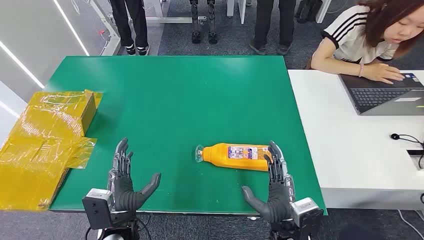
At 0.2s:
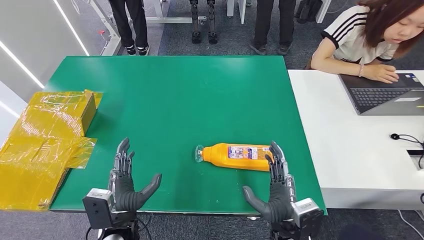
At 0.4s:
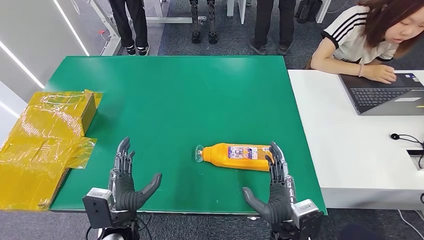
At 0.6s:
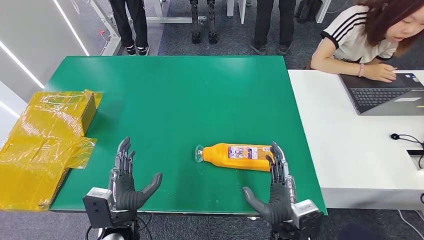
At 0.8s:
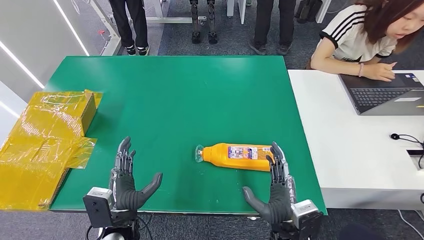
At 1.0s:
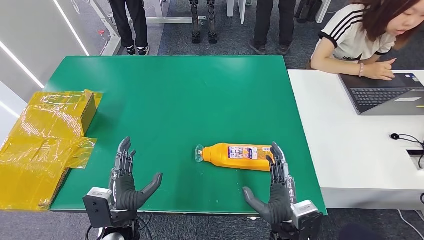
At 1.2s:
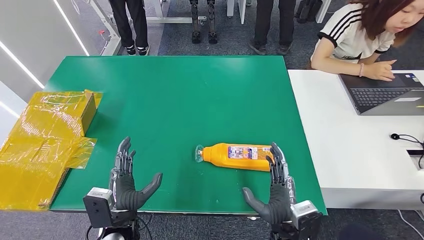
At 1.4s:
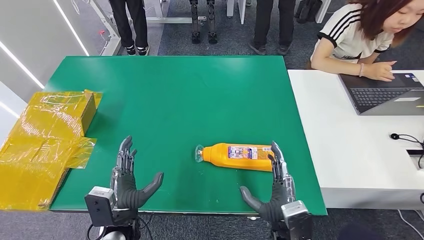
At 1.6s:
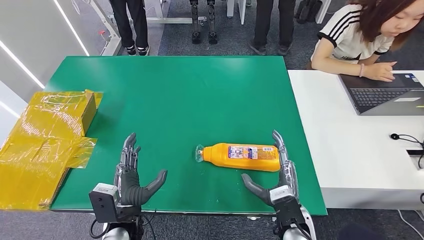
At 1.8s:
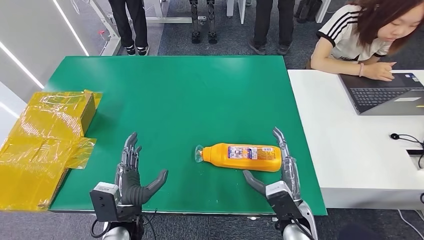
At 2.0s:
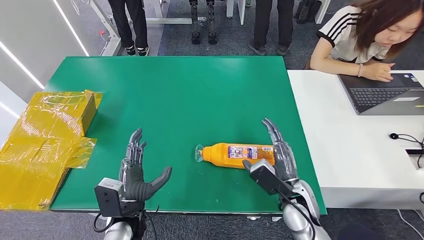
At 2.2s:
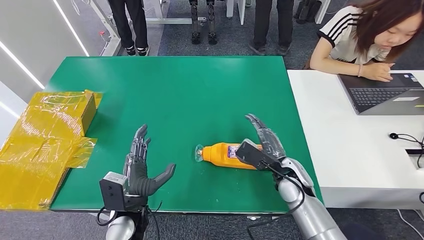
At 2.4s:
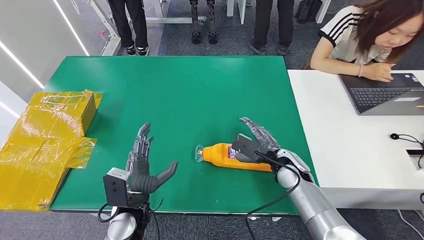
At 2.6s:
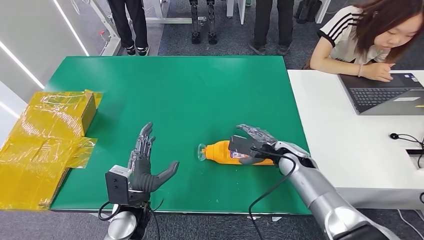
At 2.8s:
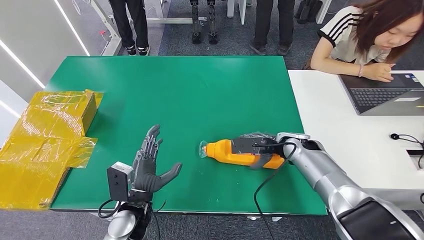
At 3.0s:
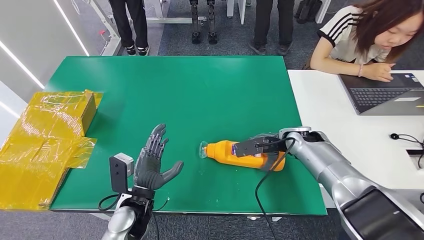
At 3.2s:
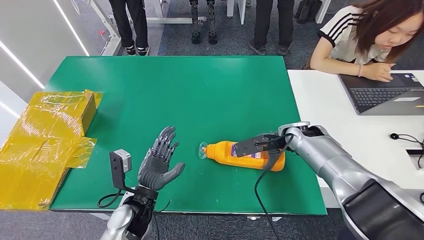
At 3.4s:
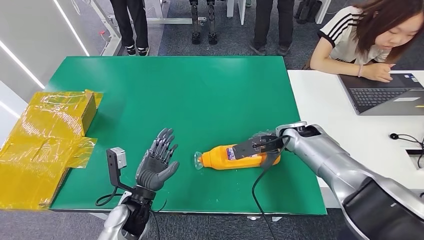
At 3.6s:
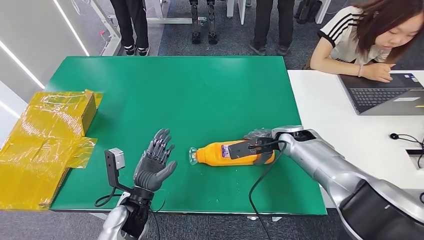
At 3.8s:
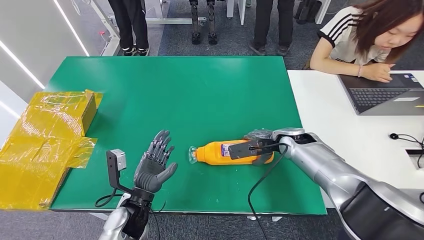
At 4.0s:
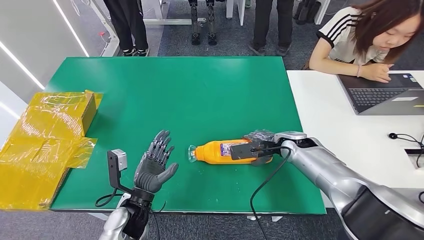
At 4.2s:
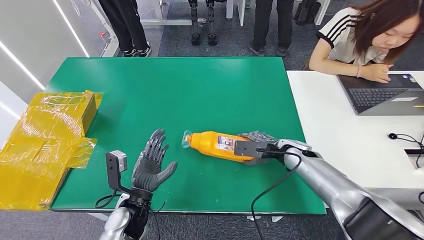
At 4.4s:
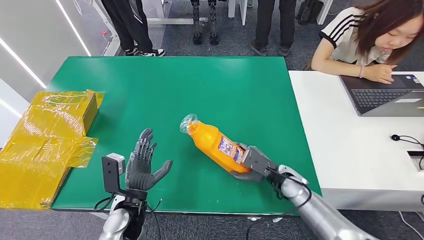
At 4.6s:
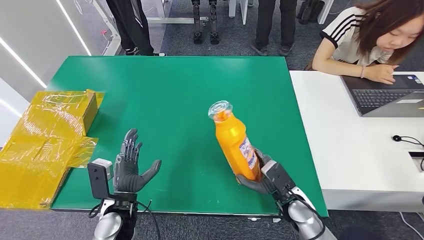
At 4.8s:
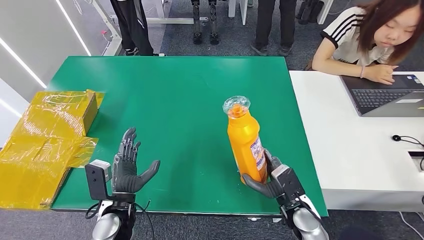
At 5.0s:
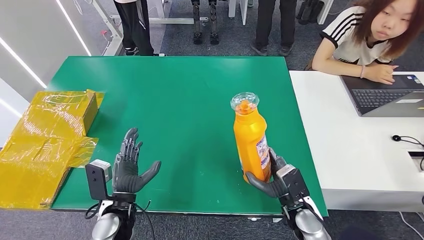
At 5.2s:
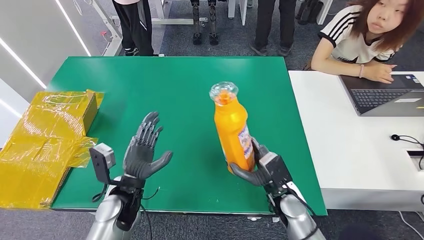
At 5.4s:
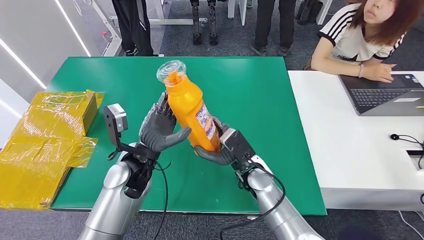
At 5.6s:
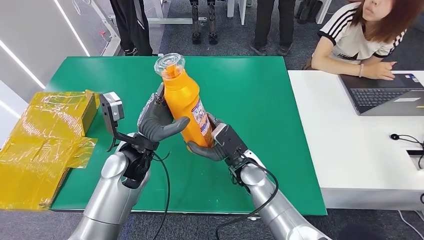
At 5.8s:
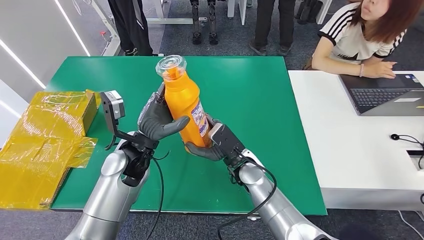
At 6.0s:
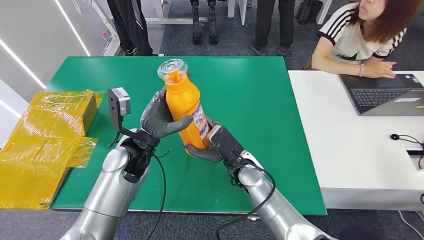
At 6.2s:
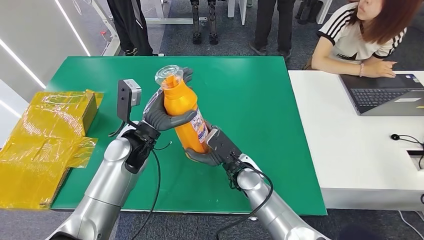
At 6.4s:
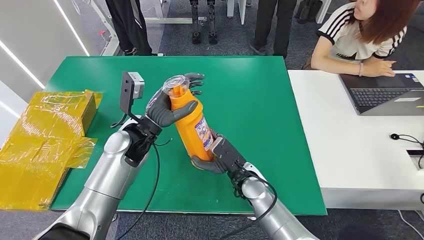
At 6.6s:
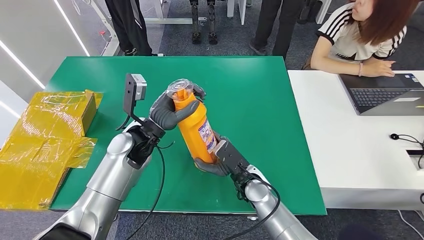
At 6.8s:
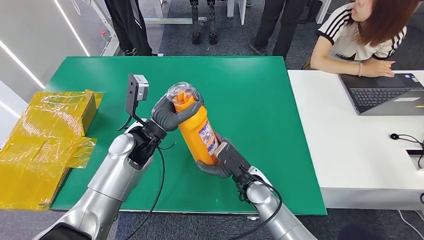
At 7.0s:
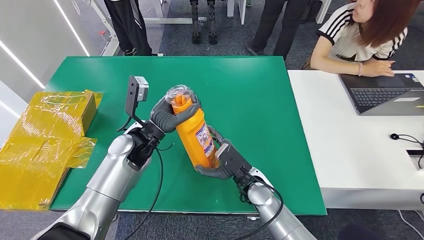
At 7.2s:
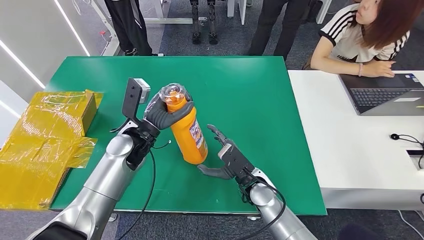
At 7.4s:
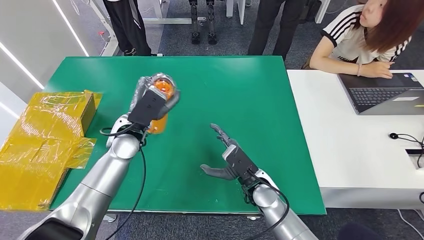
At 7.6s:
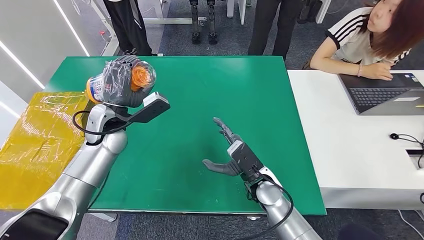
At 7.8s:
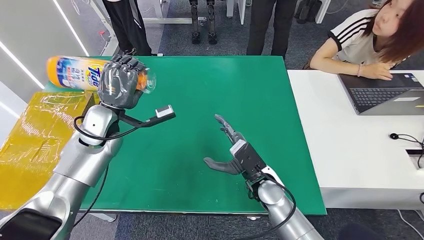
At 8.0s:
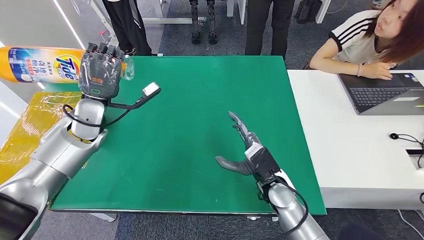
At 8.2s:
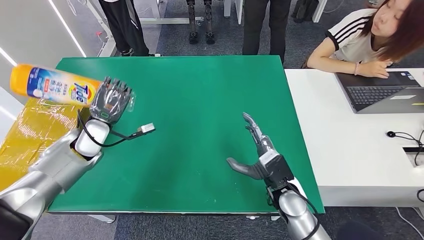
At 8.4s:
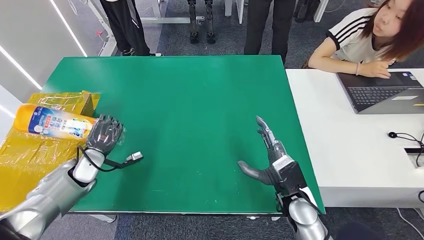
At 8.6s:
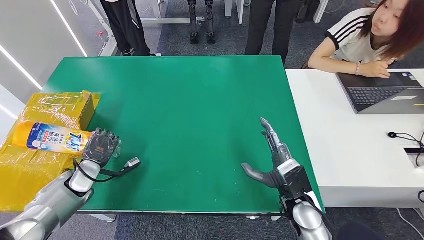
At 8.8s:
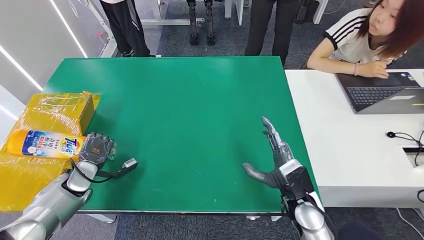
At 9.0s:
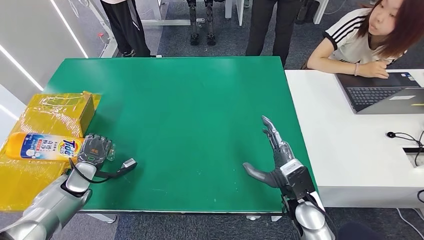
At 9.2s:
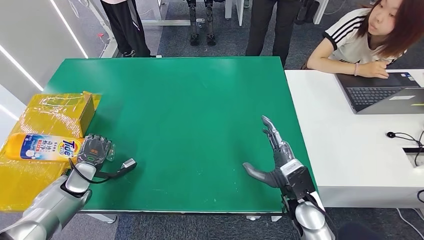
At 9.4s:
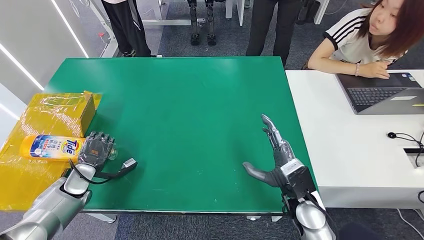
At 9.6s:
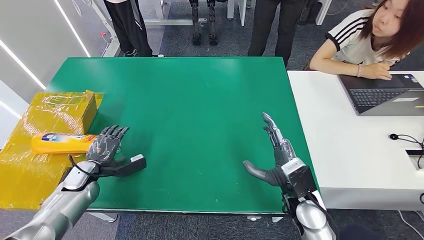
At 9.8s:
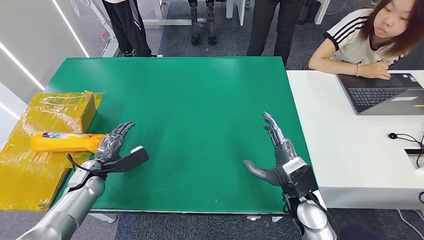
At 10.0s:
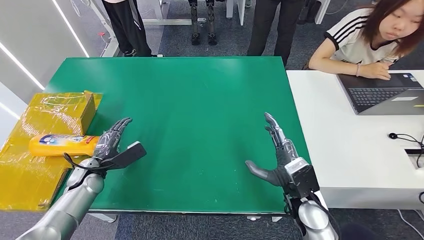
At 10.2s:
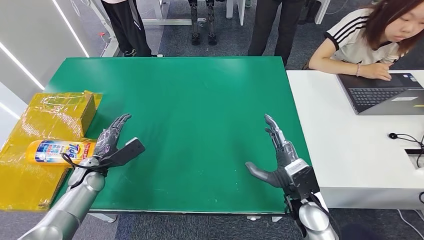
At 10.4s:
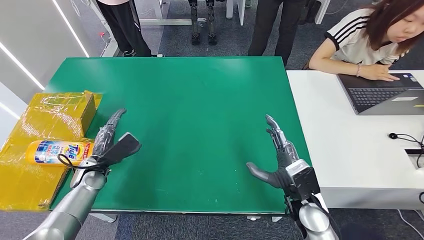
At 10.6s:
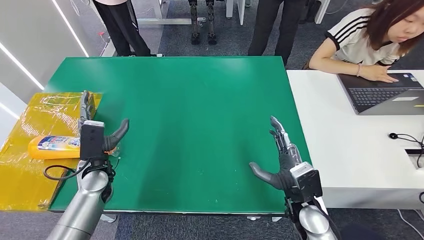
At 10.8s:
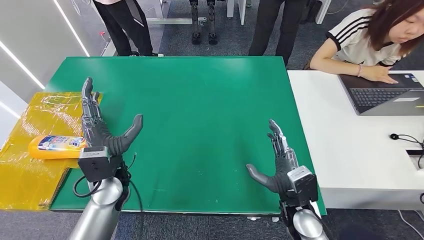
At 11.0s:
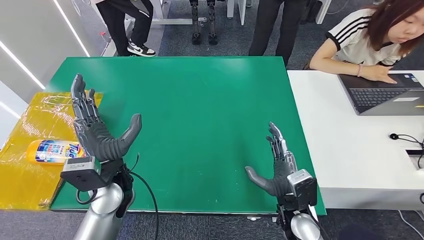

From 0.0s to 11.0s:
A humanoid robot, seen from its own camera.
Step, from 0.0s to 4.8s: Pick up the bottle from the table.
Step, from 5.0s to 11.0s: Turn the bottle to the front side.
From 1.6s to 3.2s: The right hand shifts about 25 cm forward.

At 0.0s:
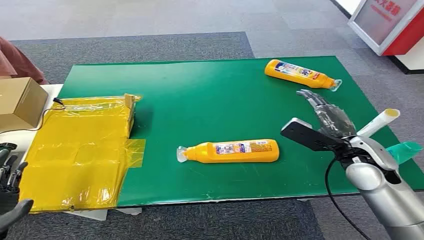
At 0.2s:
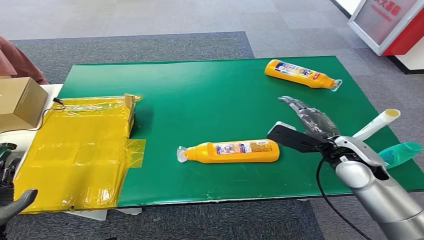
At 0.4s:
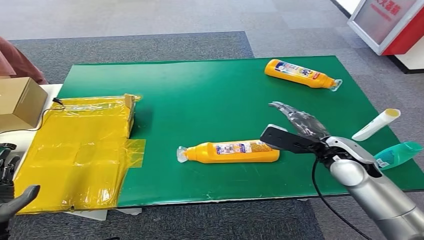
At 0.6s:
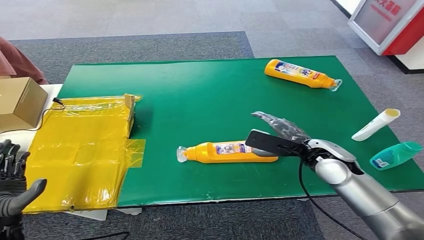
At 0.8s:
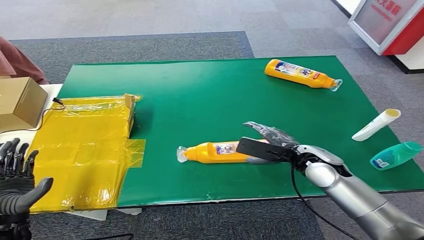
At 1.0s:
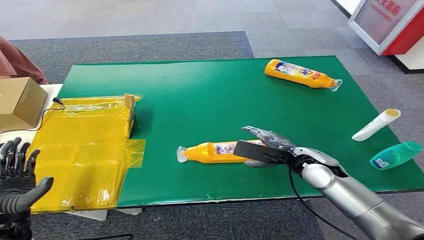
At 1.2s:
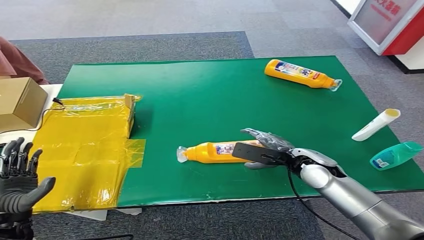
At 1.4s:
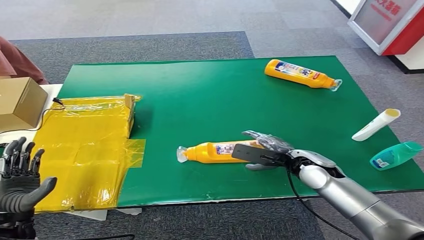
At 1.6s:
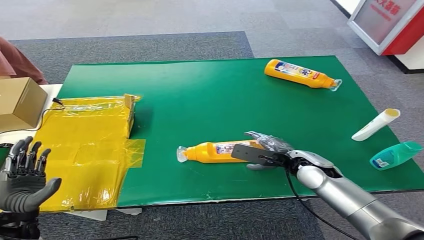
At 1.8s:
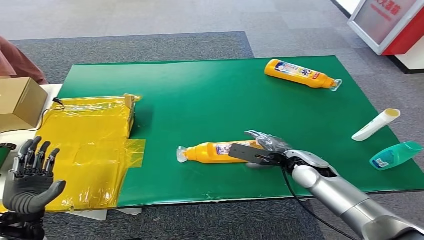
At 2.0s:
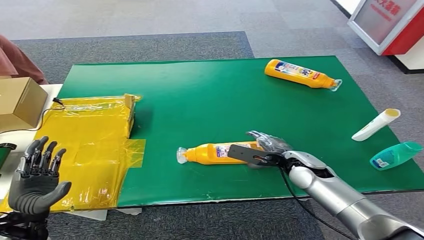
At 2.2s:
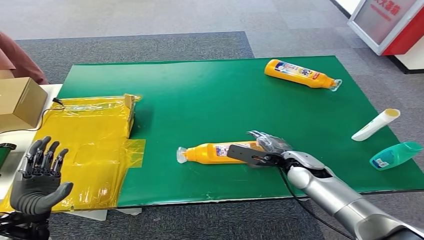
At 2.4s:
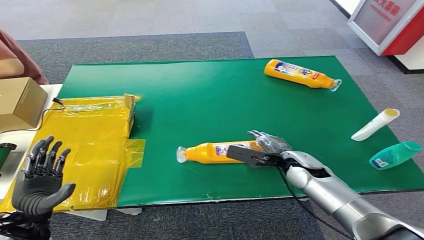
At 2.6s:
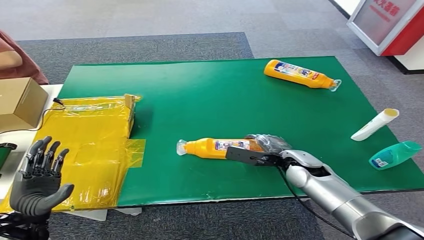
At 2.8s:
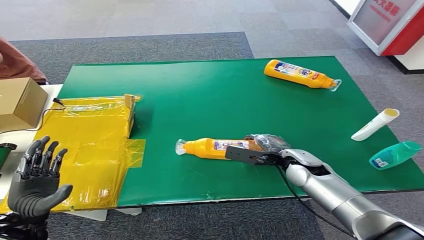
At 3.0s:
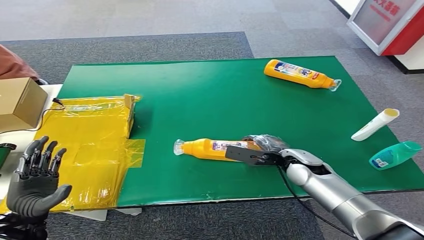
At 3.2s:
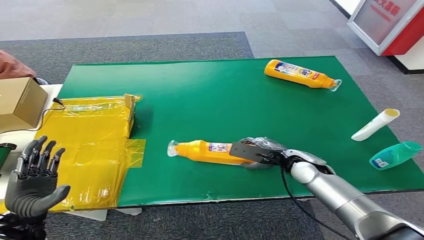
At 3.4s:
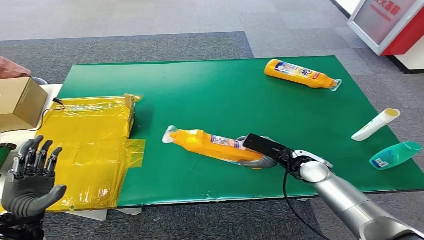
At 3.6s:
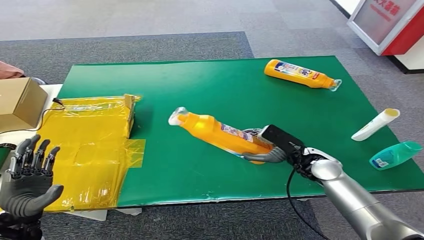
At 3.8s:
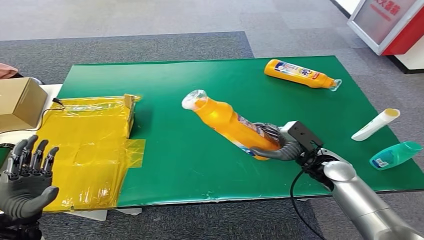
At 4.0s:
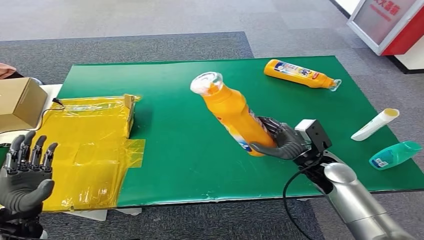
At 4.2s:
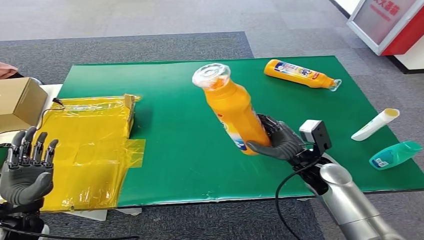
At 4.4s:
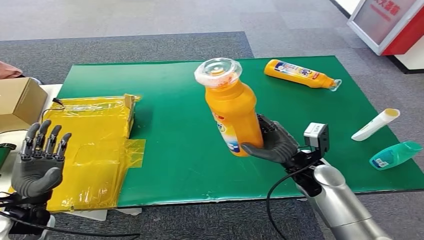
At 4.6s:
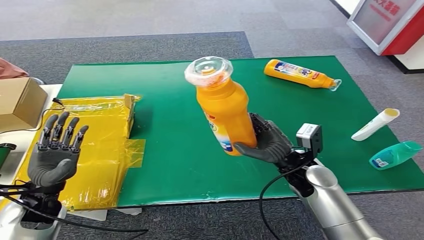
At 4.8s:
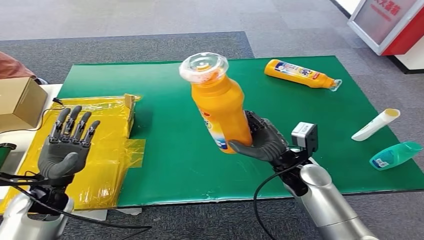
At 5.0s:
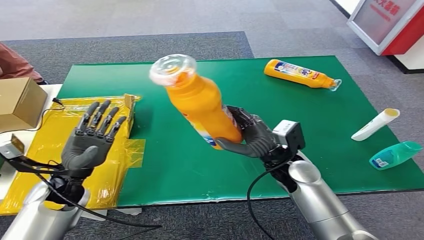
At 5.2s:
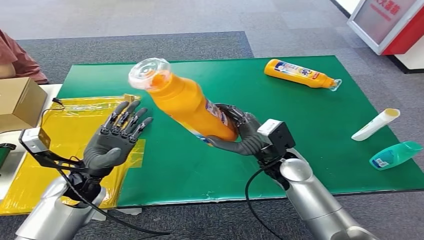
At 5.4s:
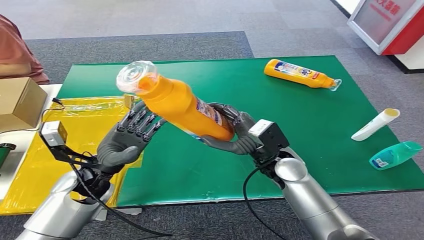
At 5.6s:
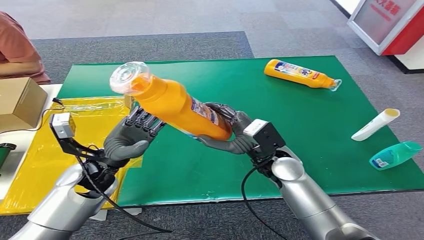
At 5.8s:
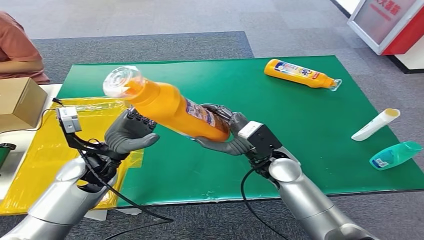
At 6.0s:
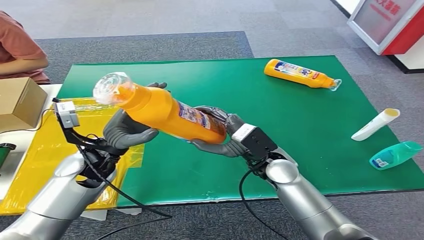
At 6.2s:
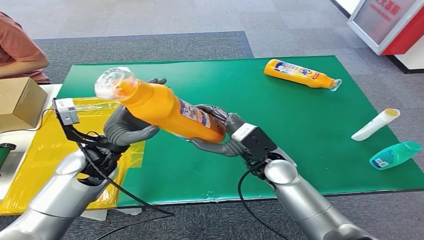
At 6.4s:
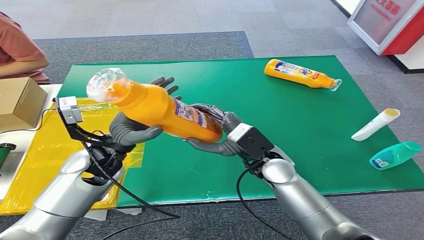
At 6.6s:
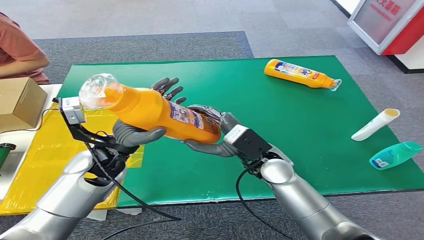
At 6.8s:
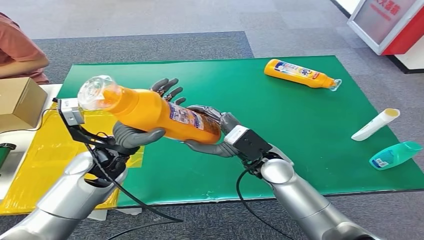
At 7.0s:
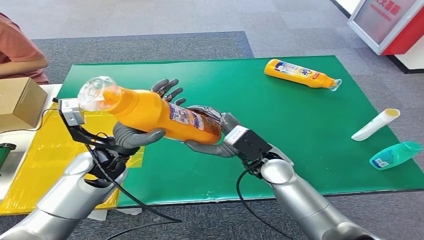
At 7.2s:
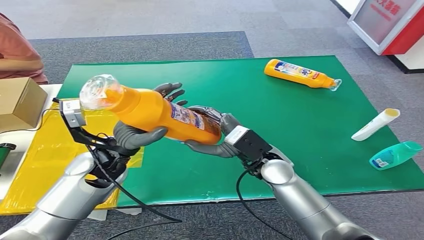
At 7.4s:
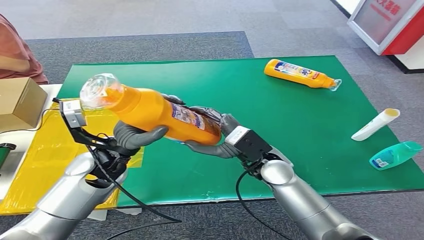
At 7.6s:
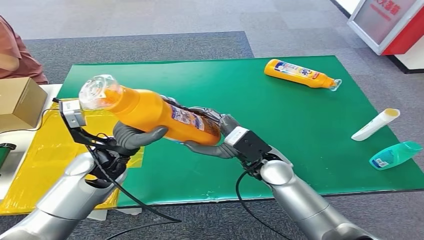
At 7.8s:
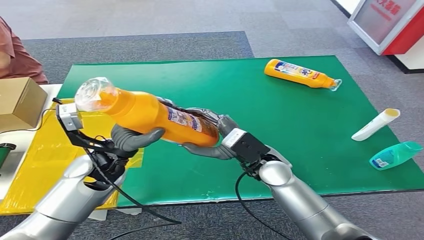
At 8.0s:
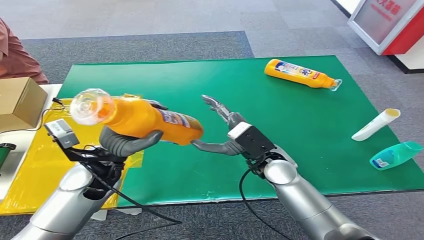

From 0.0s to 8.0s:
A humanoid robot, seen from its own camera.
Step, from 0.0s to 4.4s: Pick up the bottle from the table.
From 1.6s to 3.2s: There are only small adjustments of the hands.
From 6.4s to 8.0s: The hands make only small movements.
